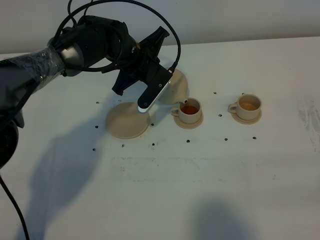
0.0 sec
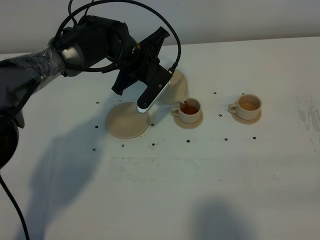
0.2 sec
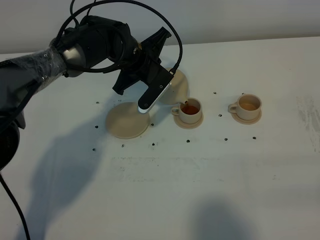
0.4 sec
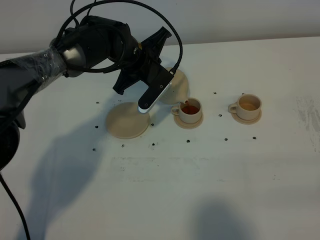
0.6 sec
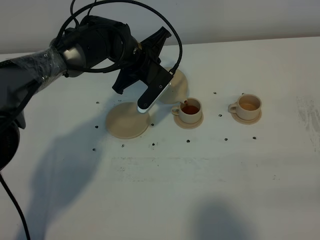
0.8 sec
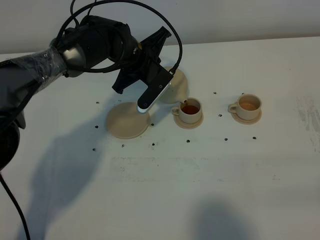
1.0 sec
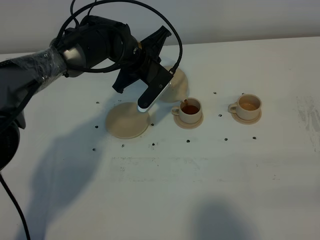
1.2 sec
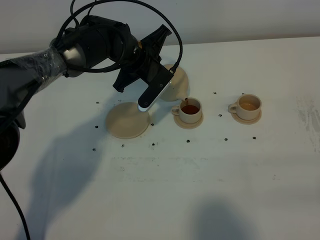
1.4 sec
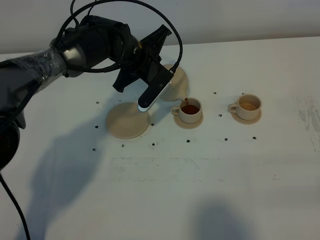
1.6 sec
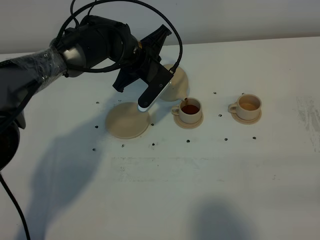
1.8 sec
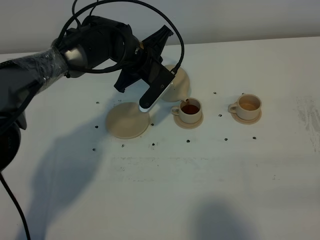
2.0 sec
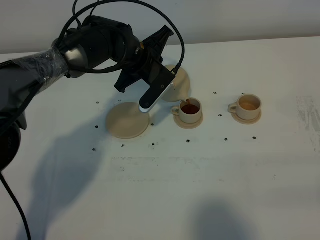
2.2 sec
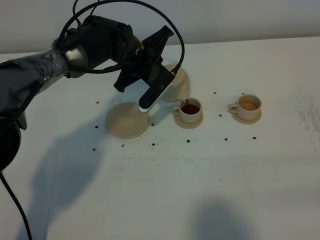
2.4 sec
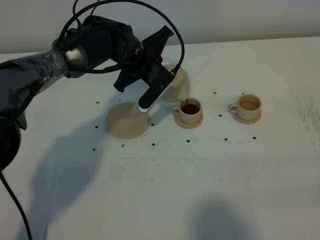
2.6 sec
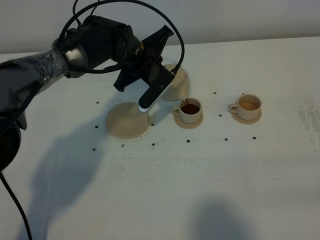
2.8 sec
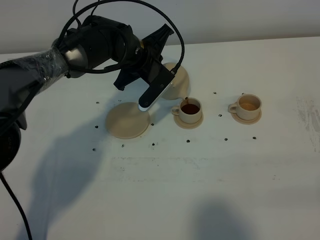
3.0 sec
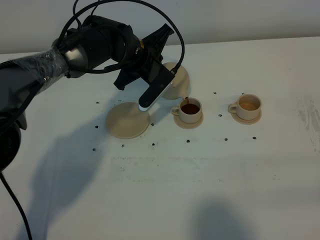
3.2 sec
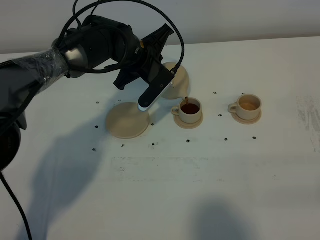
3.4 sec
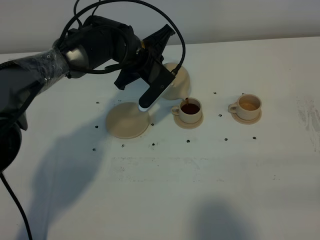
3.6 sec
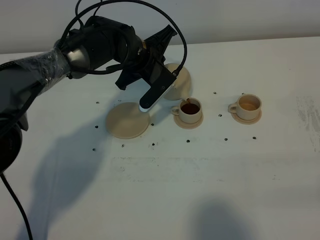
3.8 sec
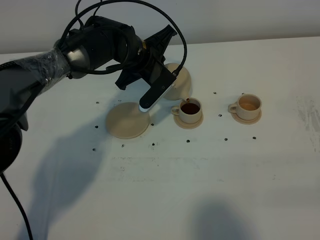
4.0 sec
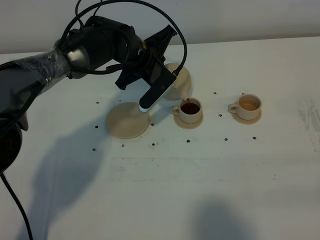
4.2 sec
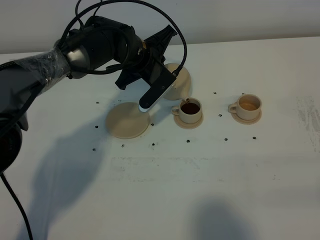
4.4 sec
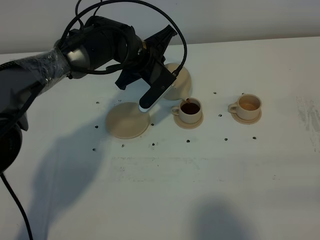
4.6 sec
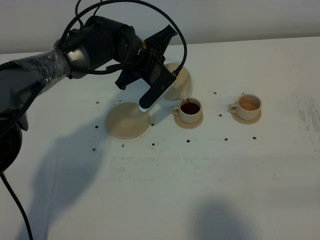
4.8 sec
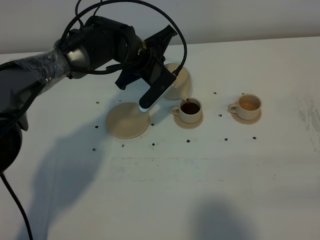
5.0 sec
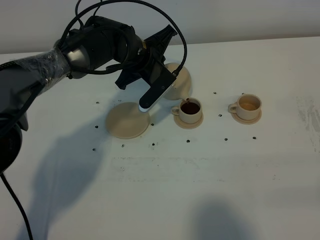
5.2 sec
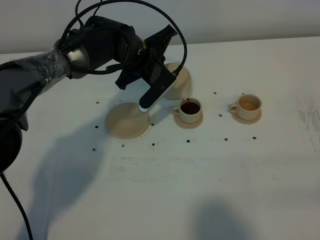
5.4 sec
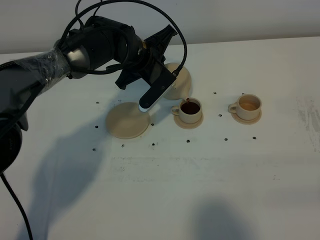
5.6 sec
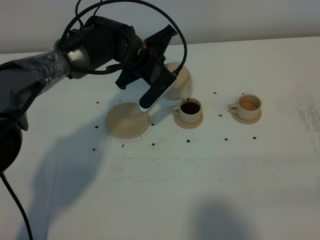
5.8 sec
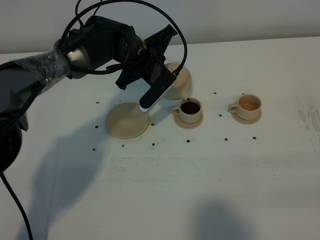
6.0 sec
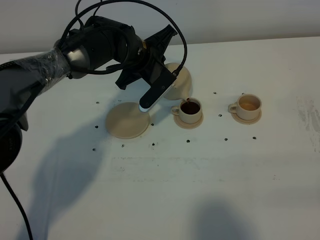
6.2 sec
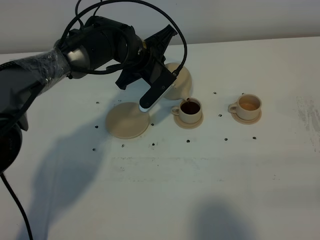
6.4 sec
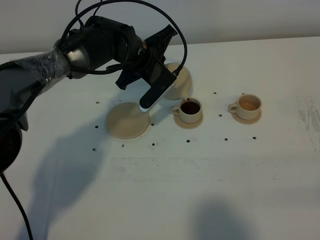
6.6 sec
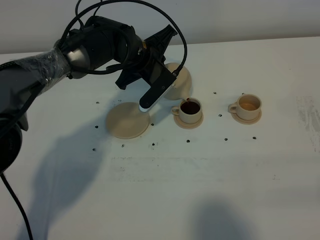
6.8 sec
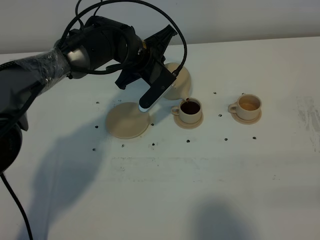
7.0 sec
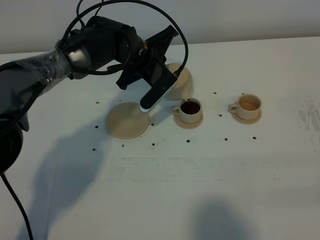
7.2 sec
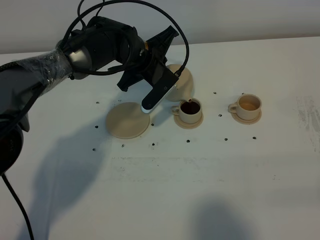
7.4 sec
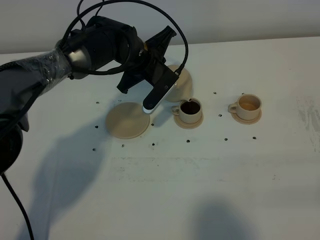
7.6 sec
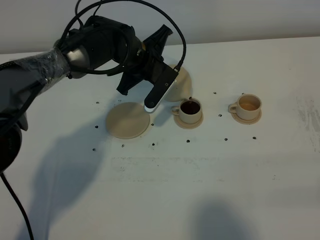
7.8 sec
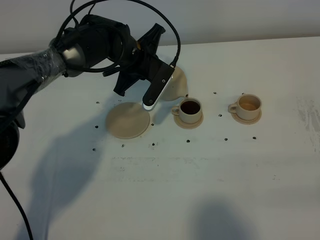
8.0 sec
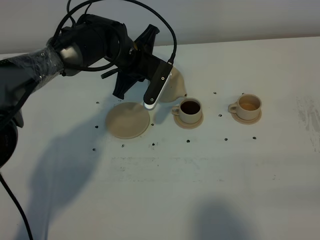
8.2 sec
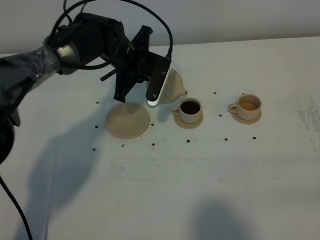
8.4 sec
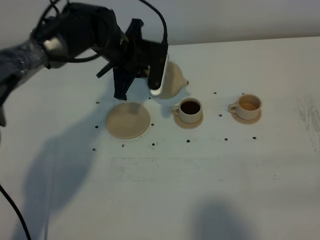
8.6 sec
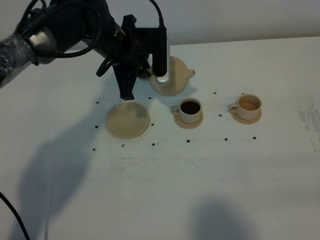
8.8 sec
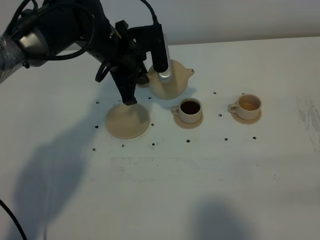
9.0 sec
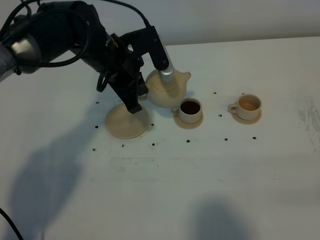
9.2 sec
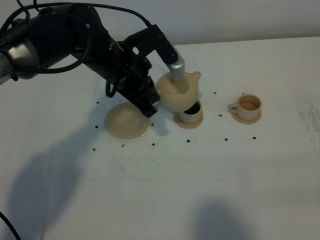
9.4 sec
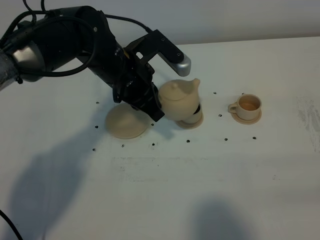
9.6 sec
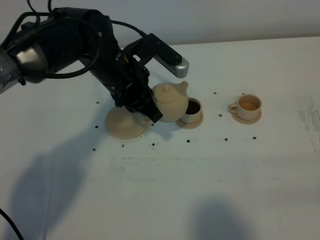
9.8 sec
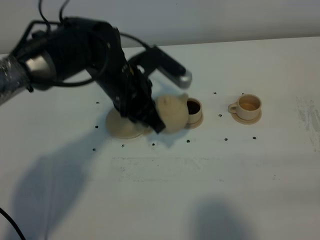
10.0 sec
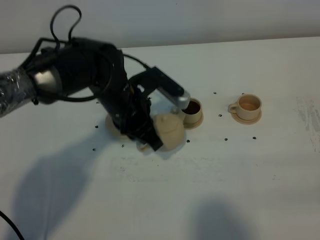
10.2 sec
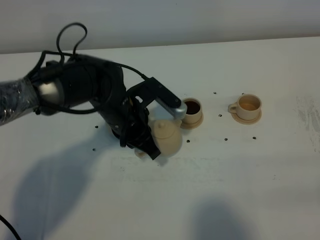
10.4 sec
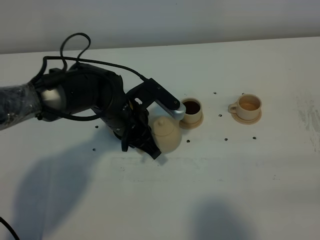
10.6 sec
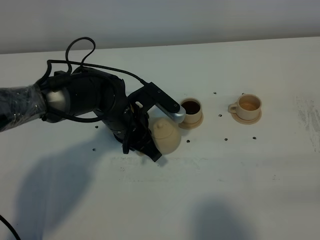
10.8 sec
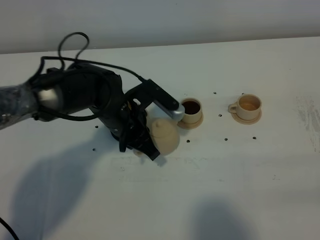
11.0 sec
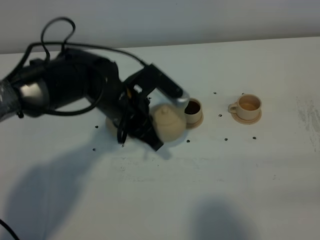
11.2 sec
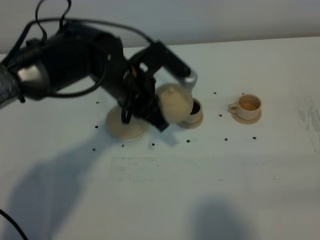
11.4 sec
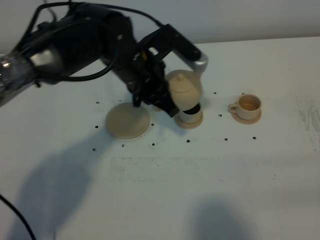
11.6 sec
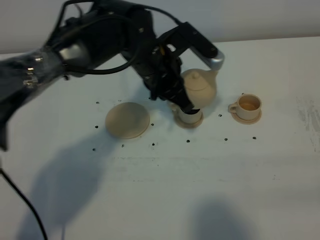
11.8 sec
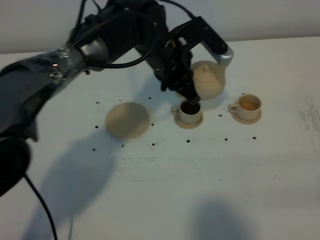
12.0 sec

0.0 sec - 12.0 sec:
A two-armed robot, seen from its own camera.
Task of the whole recording: grasp the brown teapot and pour the tea into the two brown teacups one by one, put the brown teapot back in its original place.
Step, 0.0 sec - 8.0 sec: Pour tea into the teacup with the left gripper.
0.0 sec - 1.6 sec: Neither gripper changes place.
1.6 sec - 4.4 sec: Neither gripper changes place.
4.4 sec - 6.0 sec: Neither gripper changes place.
6.0 sec - 7.6 sec: The grippers make only small movements.
7.6 sec - 9.0 sec: The left gripper changes place by some 5 cm.
9.0 sec - 10.4 sec: The left gripper shifts about 10 cm backward and downward.
10.4 sec - 12.0 sec: The left gripper goes some 15 cm to the right, forward and upward.

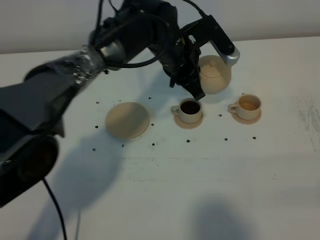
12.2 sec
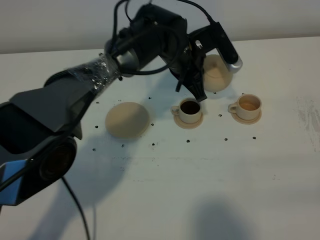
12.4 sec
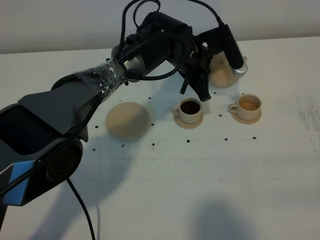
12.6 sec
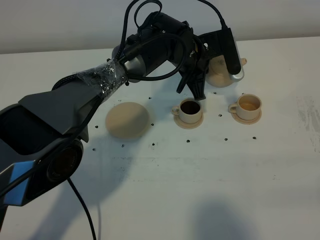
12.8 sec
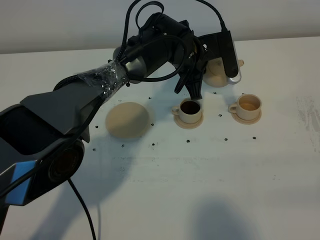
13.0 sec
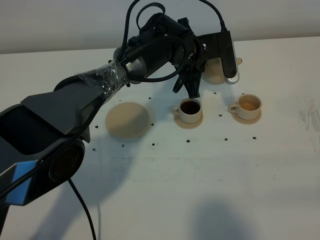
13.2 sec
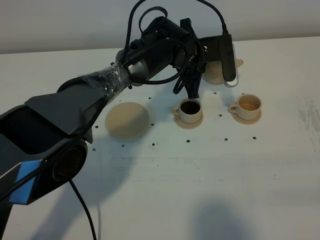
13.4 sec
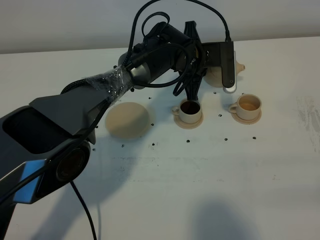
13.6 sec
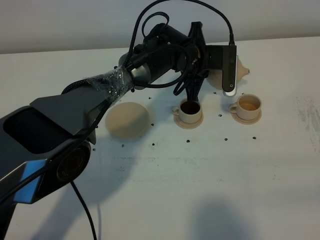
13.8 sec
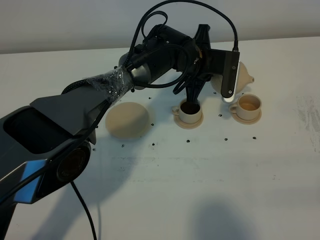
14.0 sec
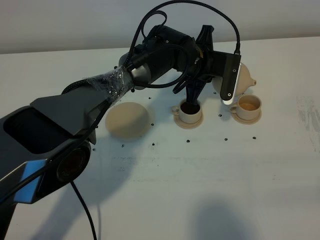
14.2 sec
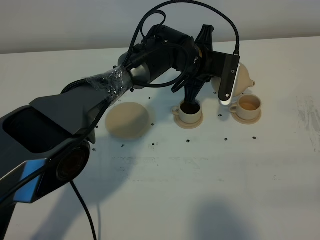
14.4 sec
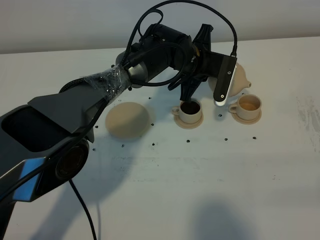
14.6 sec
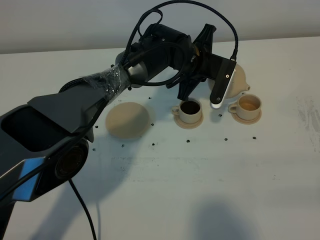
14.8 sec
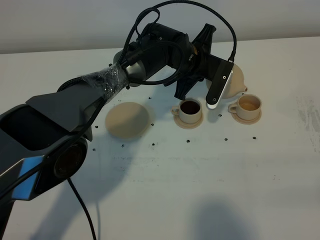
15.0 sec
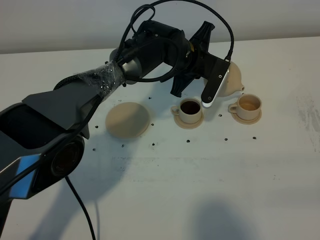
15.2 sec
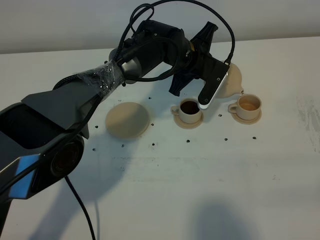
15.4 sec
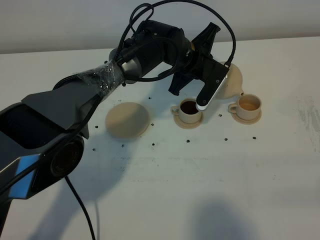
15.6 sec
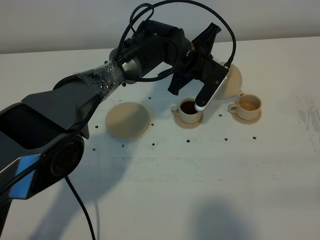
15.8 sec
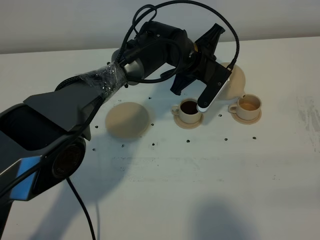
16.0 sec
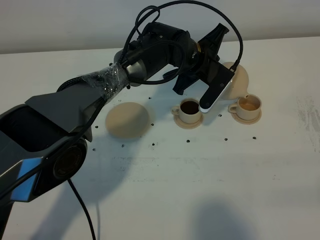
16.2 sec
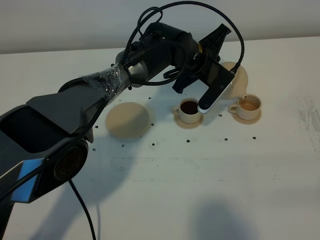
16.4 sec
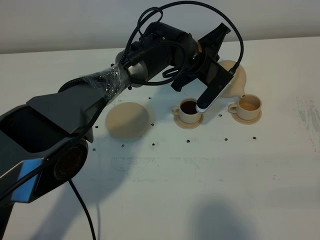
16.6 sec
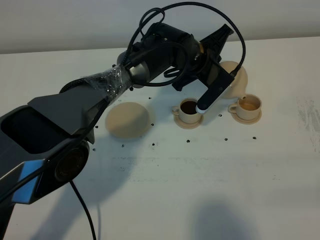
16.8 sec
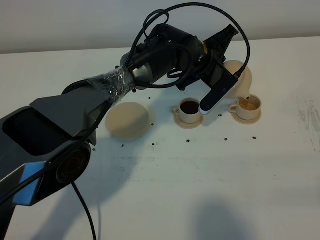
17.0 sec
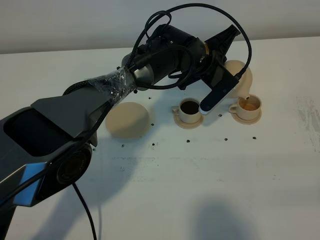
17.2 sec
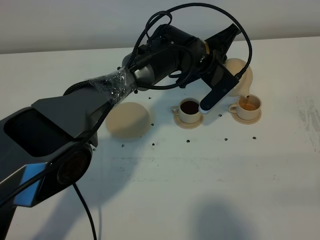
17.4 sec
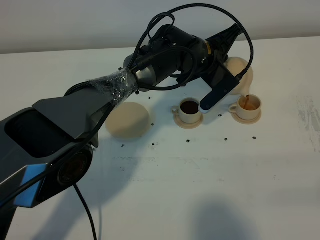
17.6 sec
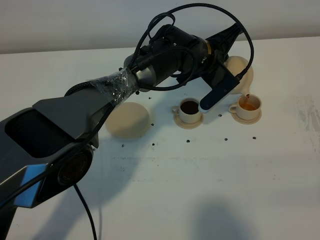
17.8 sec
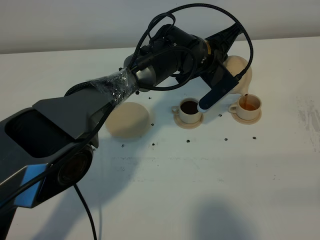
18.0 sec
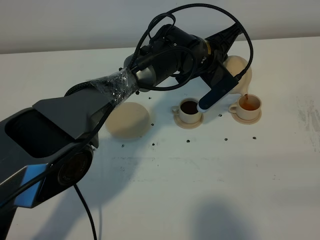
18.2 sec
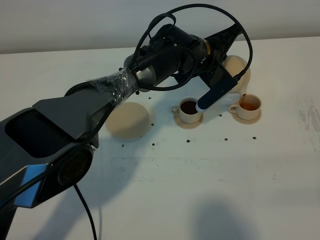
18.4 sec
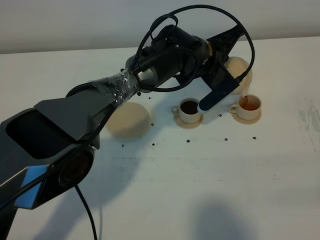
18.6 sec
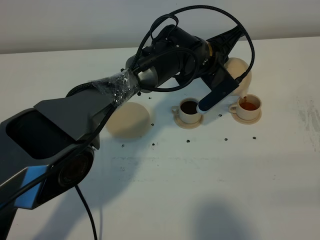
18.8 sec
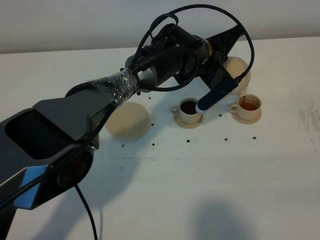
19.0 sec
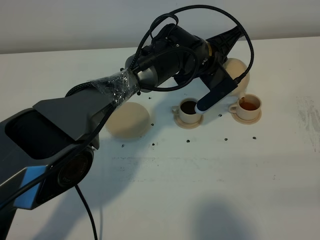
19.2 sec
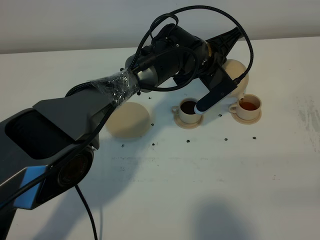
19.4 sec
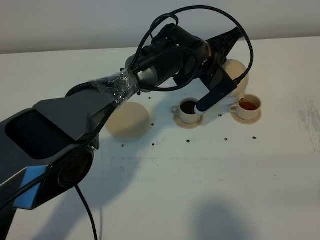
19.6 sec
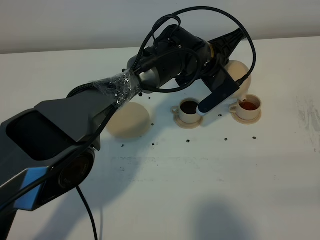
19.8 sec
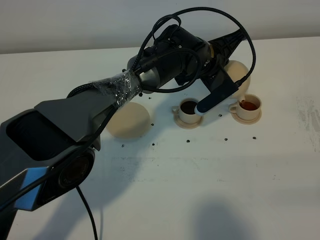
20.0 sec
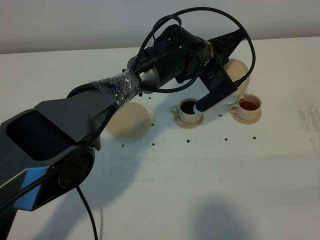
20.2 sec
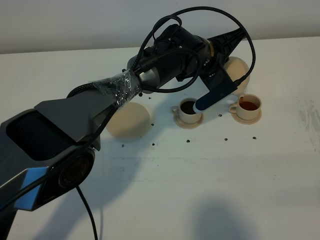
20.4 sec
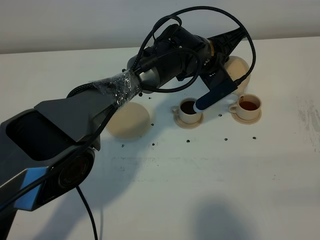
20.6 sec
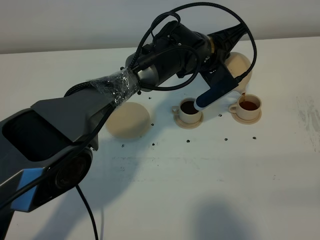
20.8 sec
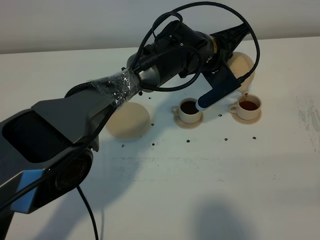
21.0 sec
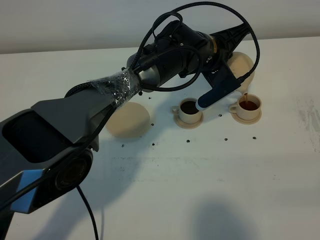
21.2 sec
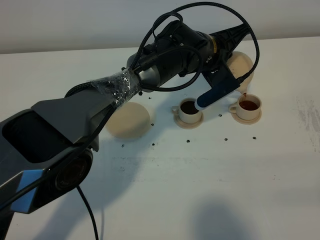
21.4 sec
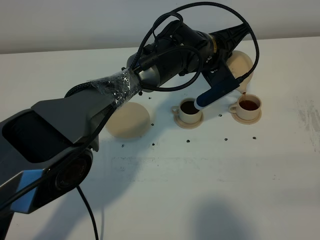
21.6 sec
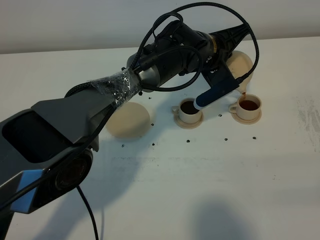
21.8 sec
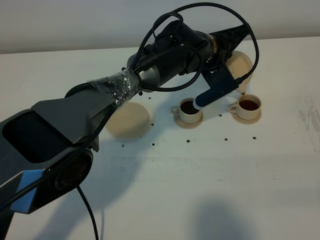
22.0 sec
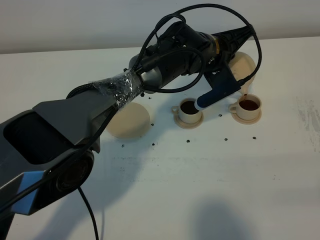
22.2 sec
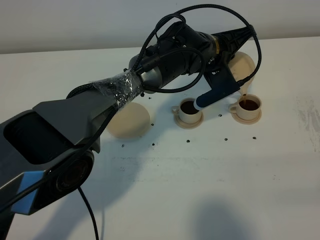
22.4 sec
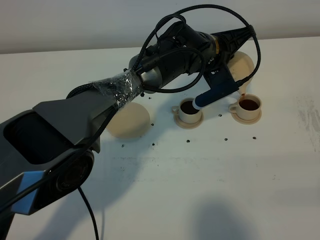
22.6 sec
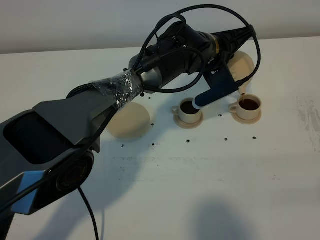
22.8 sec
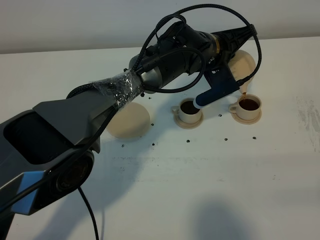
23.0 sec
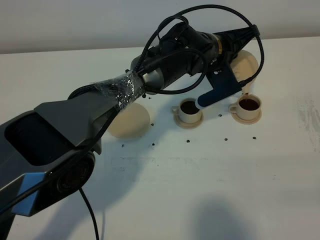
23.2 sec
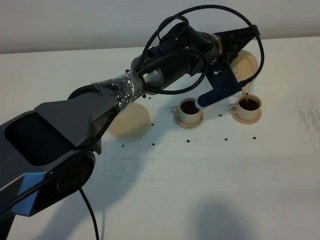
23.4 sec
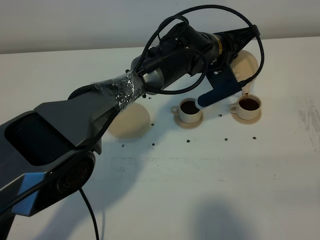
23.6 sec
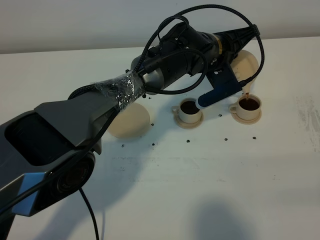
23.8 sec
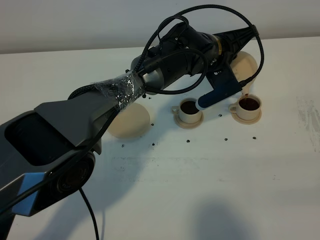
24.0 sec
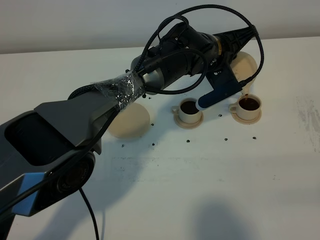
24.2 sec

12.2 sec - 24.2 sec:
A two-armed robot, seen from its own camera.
Task of the whole recording: grasp the brown teapot and pour the tea into the two brown teacups one by one, put the brown teapot back in its original place.
12.2 sec - 13.8 sec: The left gripper ends up roughly 5 cm from where it was.
15.2 sec - 16.6 sec: The grippers make only small movements.
16.6 sec - 18.2 sec: The grippers make only small movements.
18.2 sec - 19.8 sec: Neither gripper changes place.
19.8 sec - 22.6 sec: The grippers stay close to where they were, moving slightly.
22.6 sec - 24.2 sec: The two grippers keep their place.
